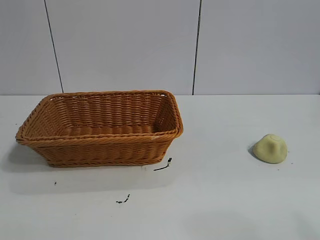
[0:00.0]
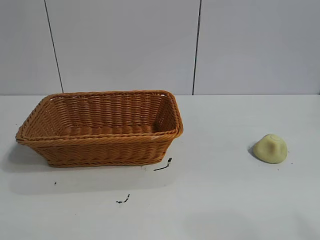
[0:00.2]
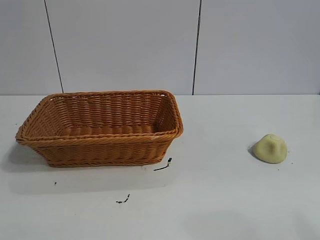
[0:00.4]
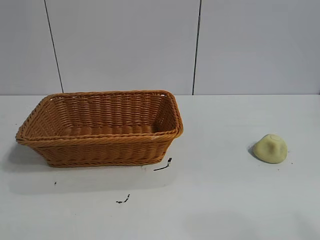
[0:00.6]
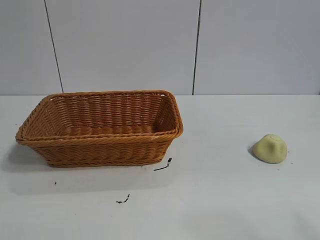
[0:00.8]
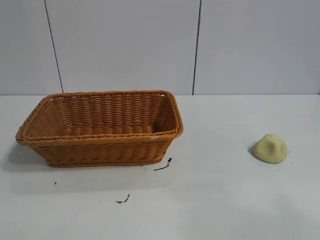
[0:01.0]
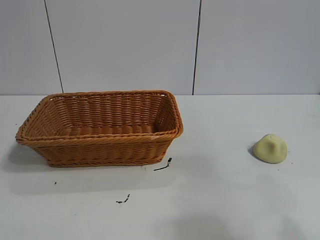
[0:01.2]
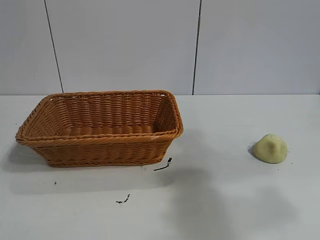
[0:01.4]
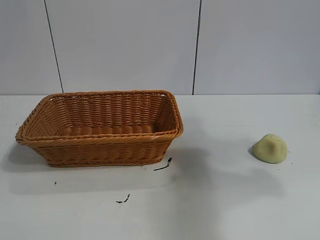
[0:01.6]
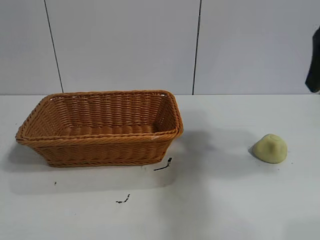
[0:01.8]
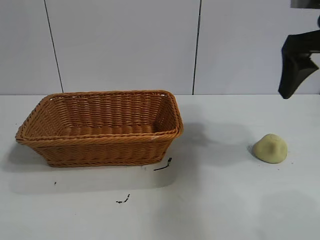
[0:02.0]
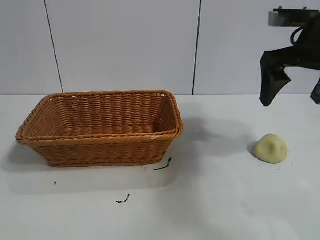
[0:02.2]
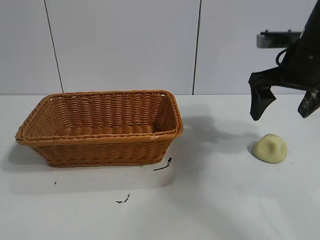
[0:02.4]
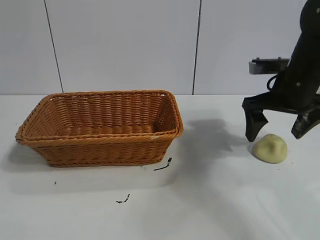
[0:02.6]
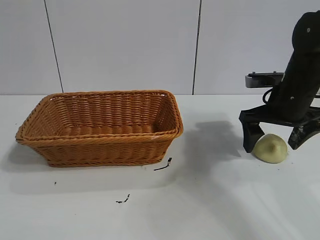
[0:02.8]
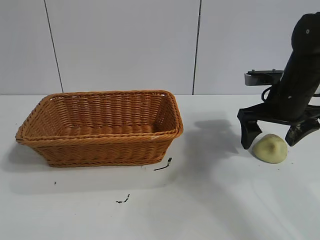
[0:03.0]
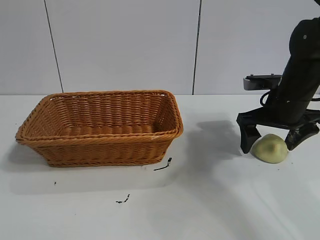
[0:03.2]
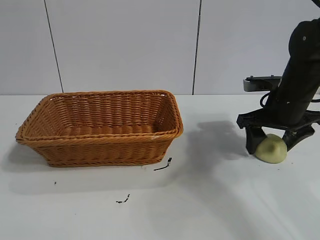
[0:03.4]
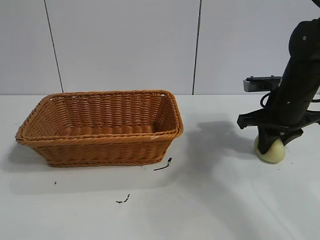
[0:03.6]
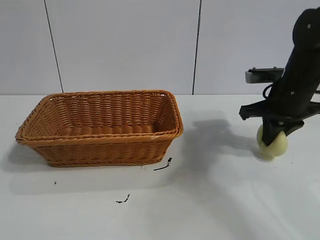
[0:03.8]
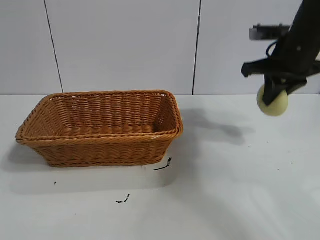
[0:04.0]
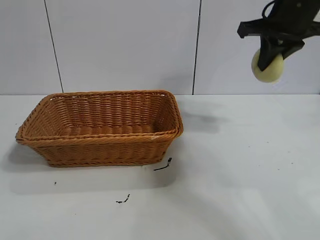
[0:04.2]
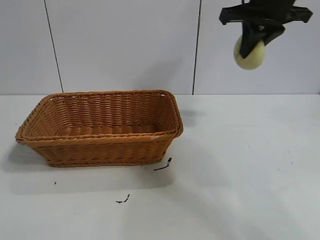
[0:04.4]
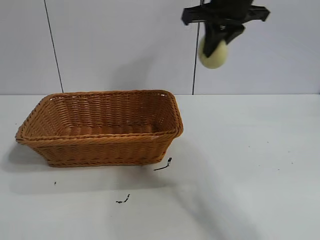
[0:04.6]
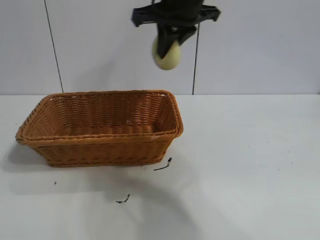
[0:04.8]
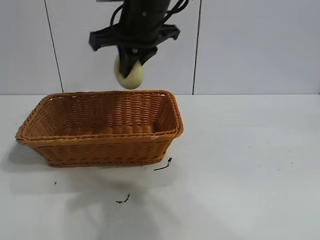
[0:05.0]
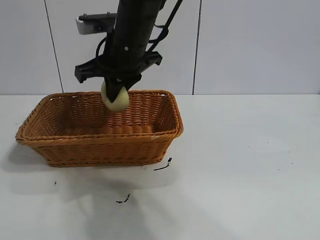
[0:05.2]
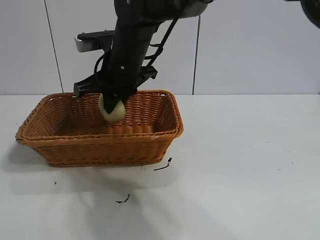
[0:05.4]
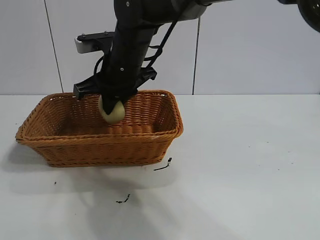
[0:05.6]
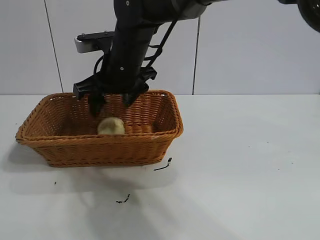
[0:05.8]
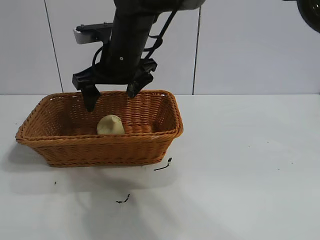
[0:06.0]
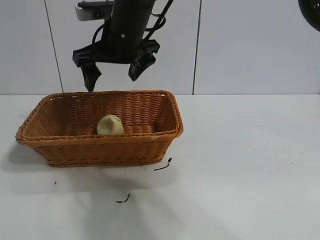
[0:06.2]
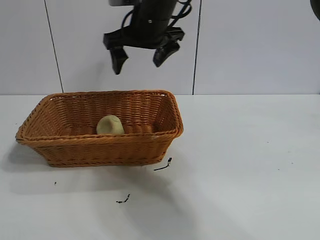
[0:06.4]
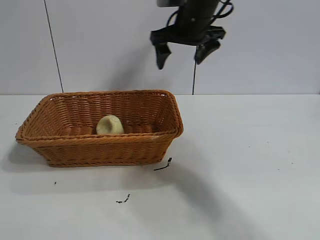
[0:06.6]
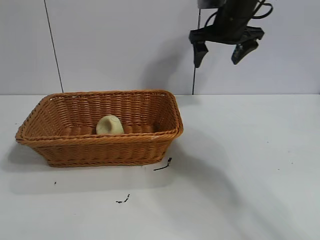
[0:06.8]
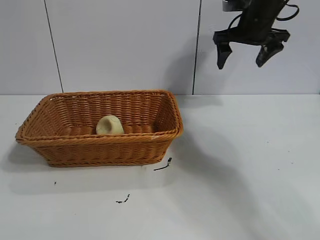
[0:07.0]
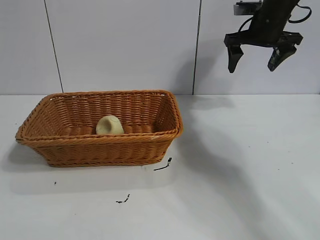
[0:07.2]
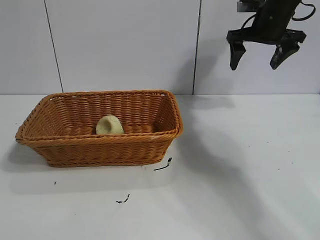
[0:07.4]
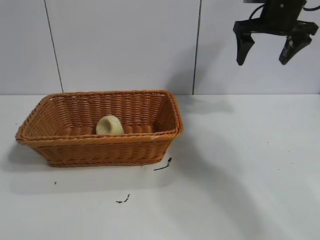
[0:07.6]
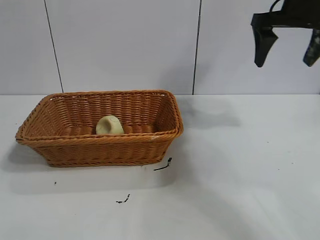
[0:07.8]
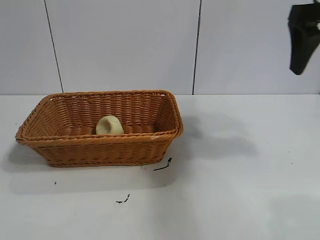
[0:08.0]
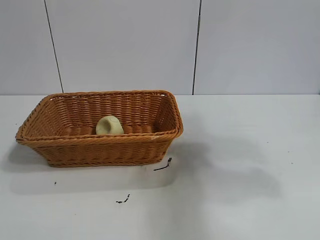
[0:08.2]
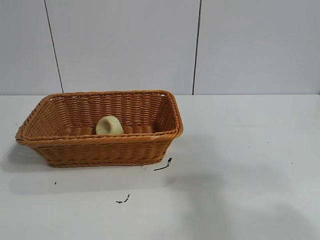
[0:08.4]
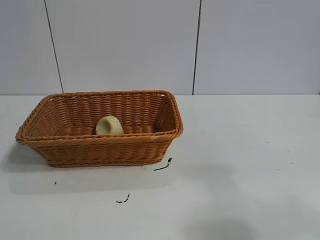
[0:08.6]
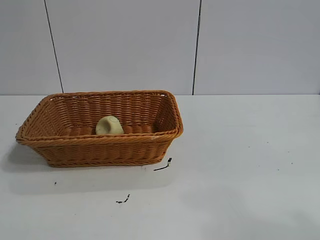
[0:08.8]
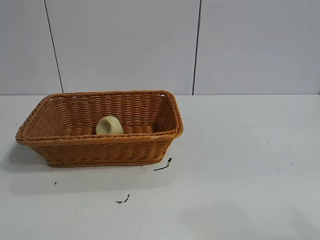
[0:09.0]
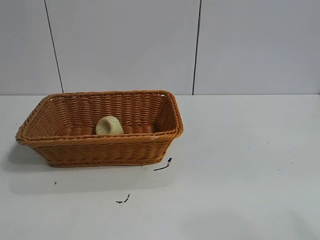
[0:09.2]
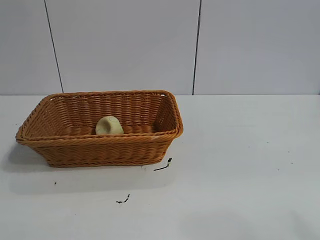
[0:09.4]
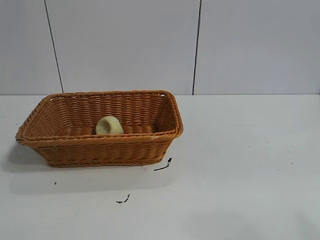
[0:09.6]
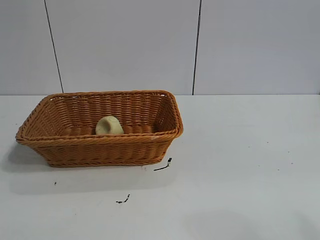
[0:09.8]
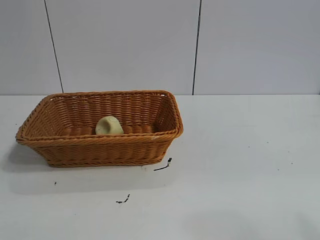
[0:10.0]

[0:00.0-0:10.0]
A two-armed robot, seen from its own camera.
Task of the whole recording: pick up the egg yolk pastry and put it into the basket.
Step, 0:01.0 to 0:03.6: Grasp egg yolk pastry with right gripper.
Step, 0:03.8 to 0:05.6: Place the egg yolk pastry in the basket with right gripper.

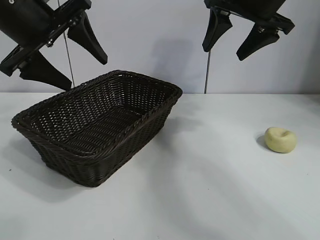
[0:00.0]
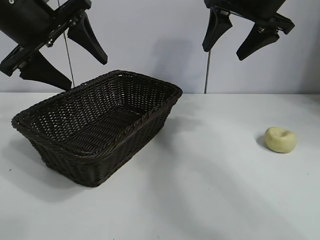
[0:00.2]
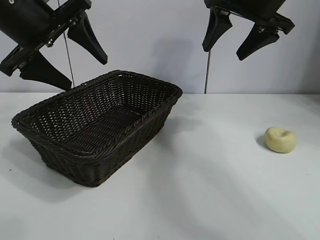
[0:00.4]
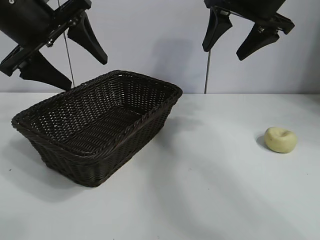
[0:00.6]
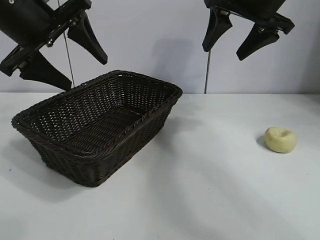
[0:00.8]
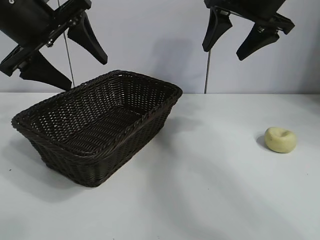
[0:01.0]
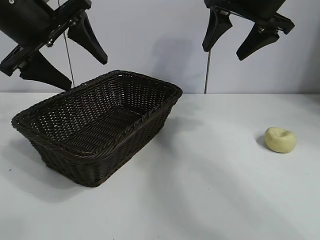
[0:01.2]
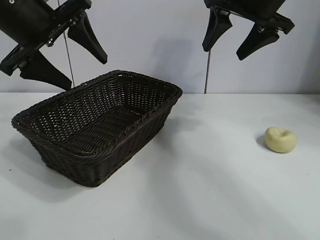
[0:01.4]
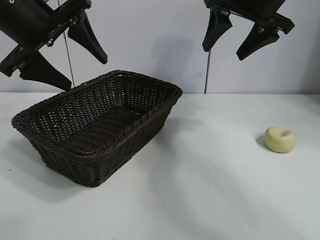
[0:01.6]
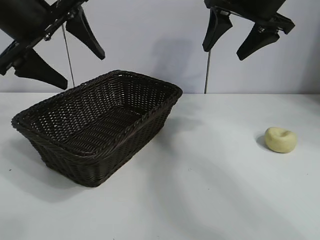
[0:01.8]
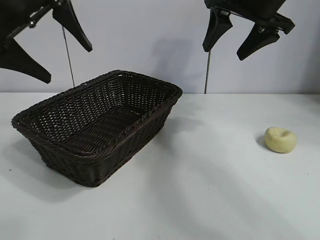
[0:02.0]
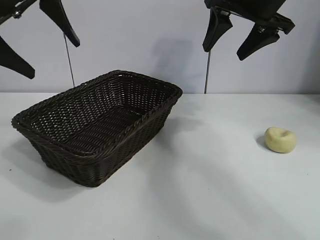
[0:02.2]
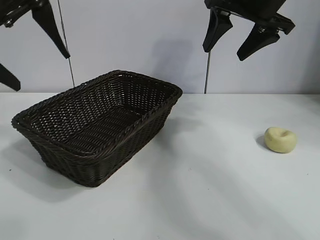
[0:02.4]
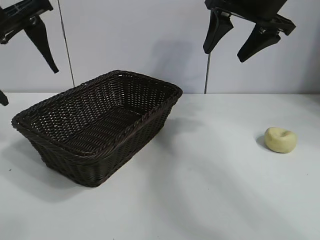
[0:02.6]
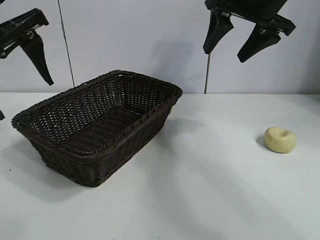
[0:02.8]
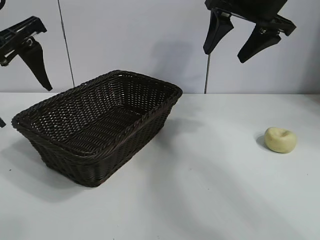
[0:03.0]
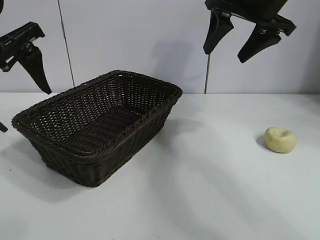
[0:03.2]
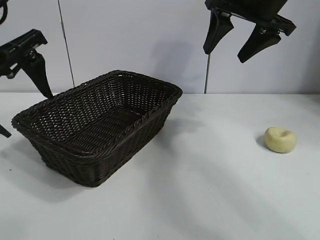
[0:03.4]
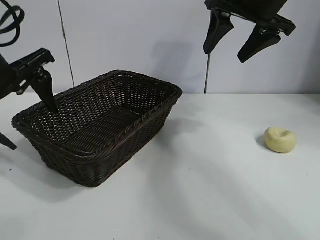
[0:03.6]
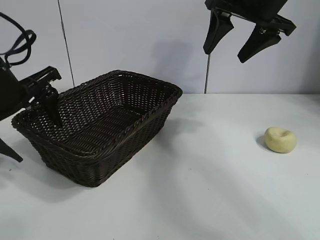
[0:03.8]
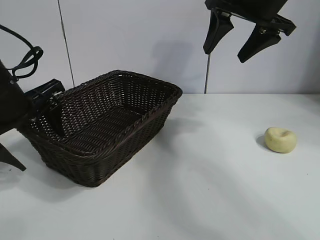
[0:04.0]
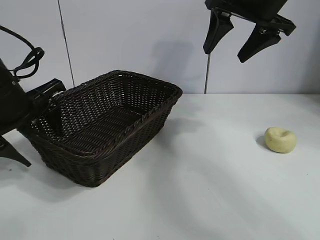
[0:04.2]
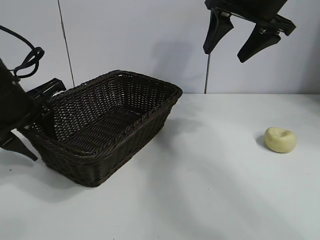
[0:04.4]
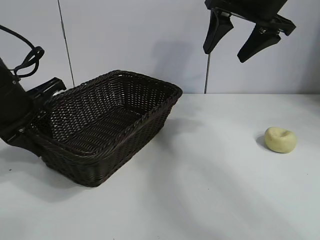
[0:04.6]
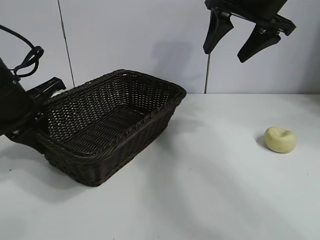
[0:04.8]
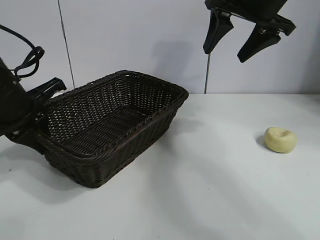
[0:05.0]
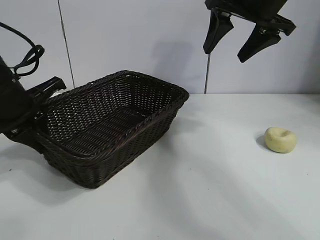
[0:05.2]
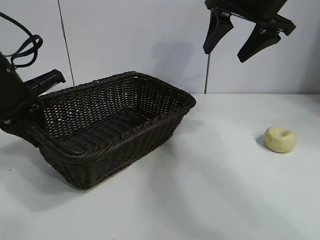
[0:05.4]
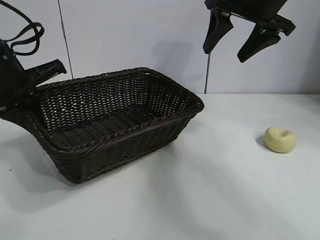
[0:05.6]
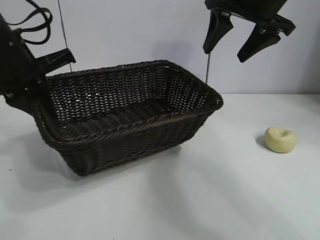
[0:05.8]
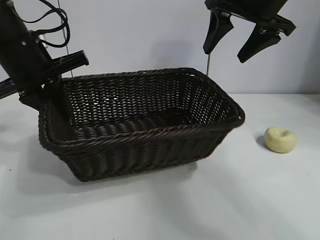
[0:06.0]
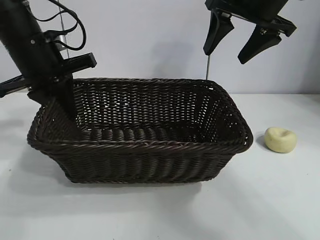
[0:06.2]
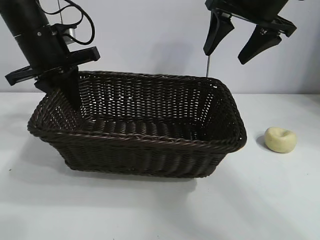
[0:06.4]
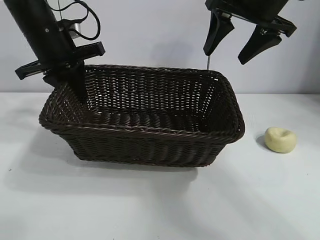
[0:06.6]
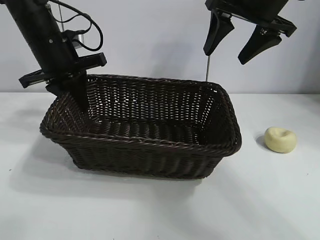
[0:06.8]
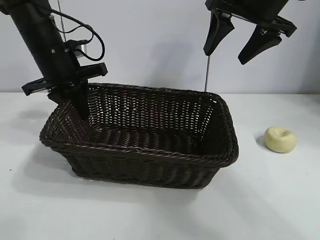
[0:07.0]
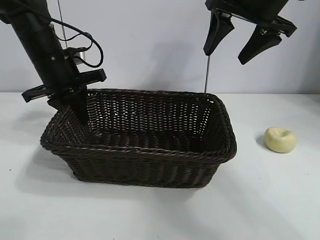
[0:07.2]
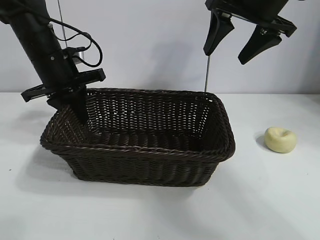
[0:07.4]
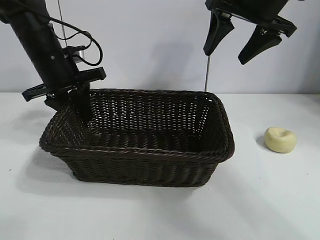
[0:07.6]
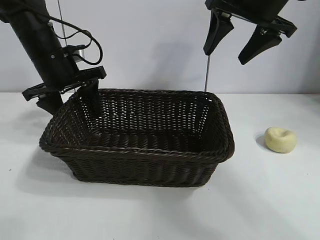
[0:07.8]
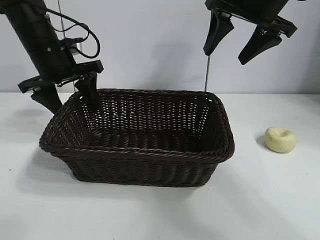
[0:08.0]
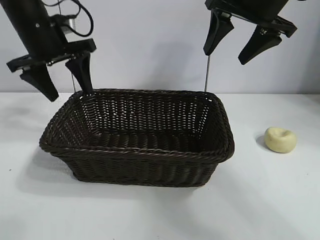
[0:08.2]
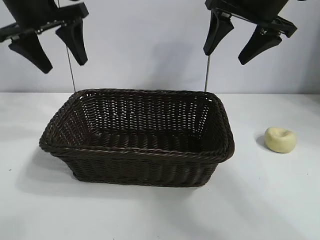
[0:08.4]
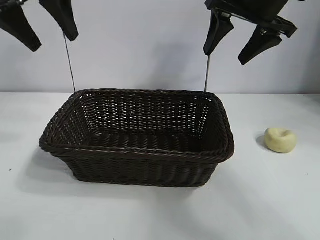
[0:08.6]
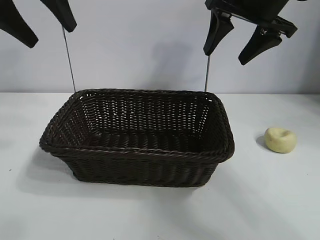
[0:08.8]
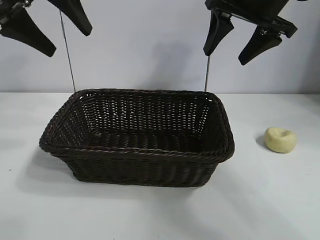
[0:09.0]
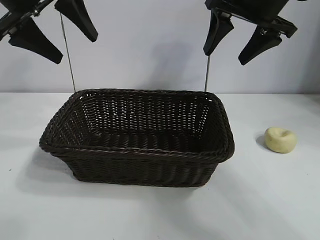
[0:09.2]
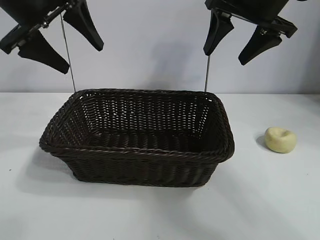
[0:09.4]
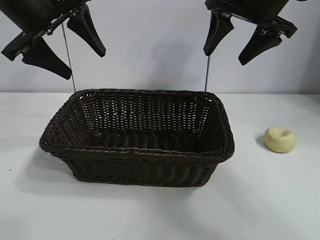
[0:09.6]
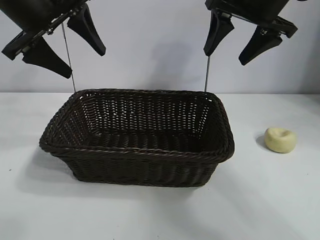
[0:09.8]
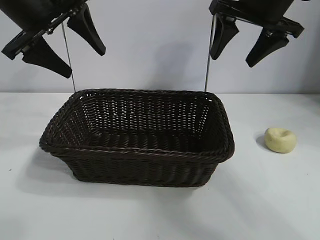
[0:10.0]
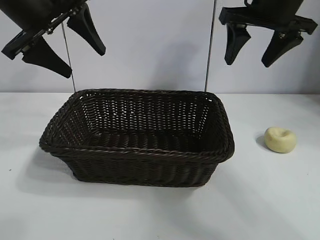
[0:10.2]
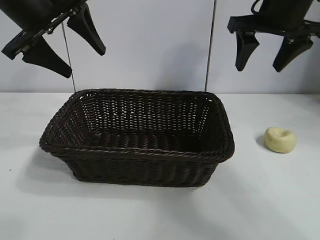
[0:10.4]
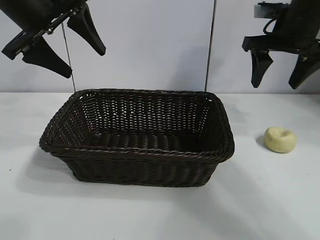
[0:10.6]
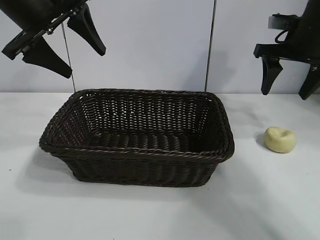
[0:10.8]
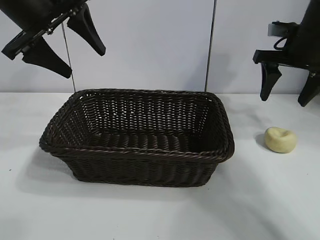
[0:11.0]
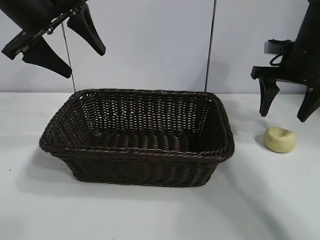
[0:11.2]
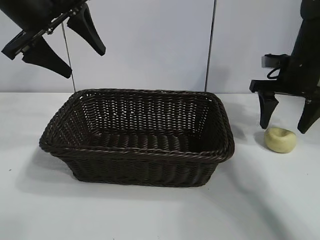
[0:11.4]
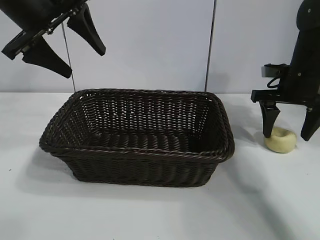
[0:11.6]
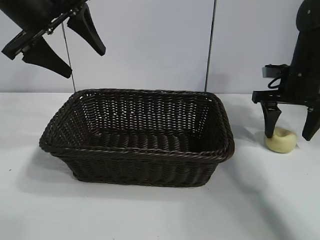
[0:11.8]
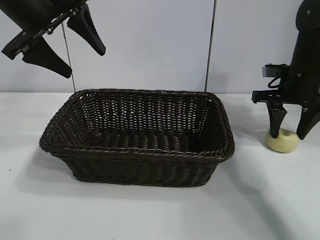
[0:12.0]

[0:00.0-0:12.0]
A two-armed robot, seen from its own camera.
Task of the whole recording: pick up the egg yolk pastry and put it into the basket.
Step, 0:01.4 to 0:04.6: Grasp the basket with left gripper.
Step, 0:05.0 to 0:07.8: Place the basket in the center of view with left gripper.
